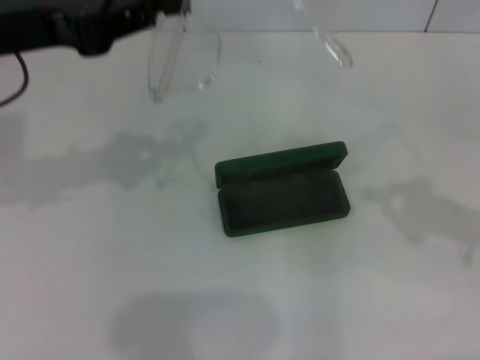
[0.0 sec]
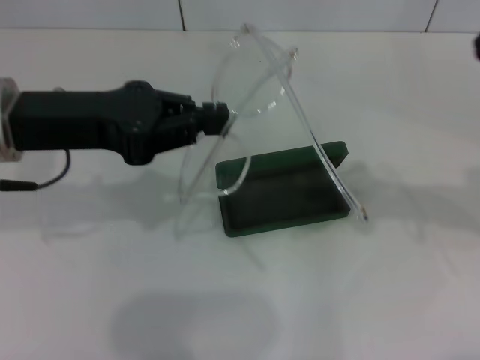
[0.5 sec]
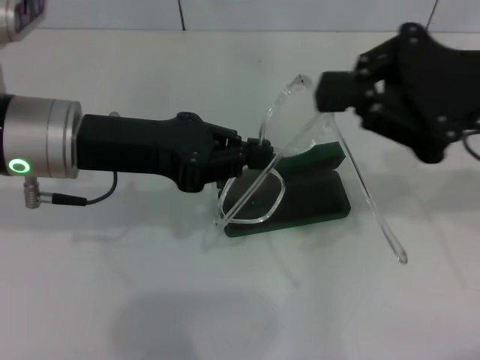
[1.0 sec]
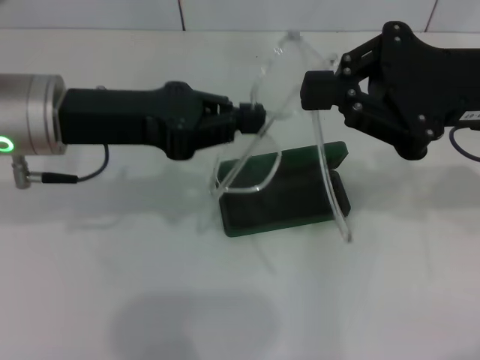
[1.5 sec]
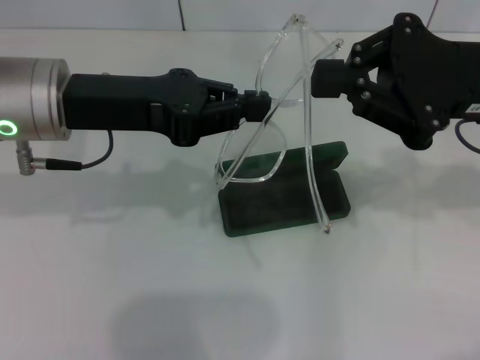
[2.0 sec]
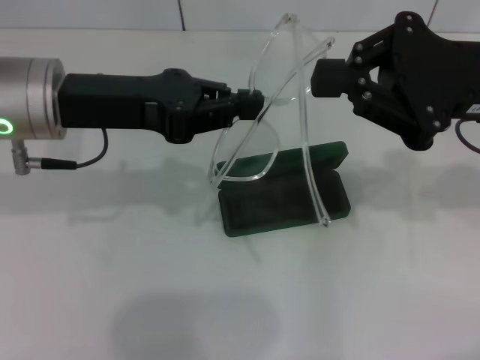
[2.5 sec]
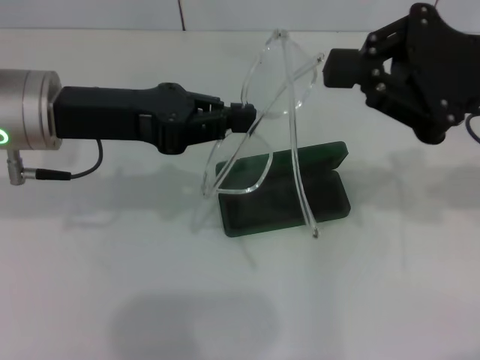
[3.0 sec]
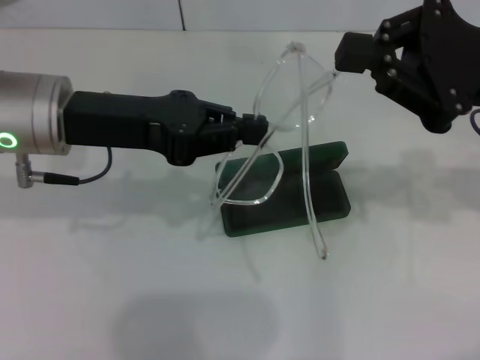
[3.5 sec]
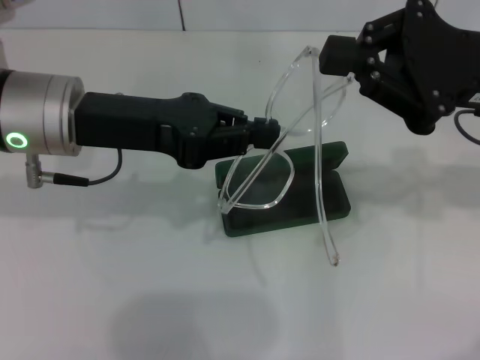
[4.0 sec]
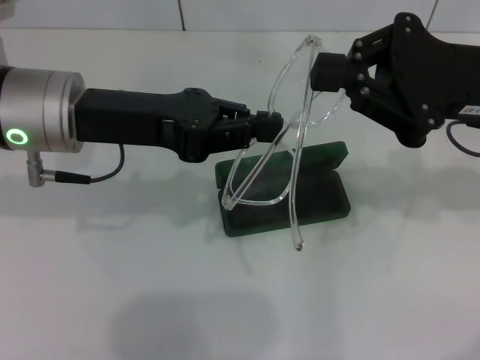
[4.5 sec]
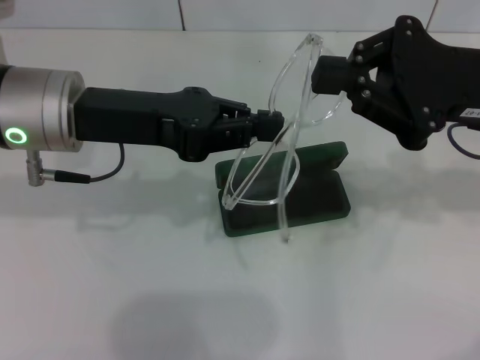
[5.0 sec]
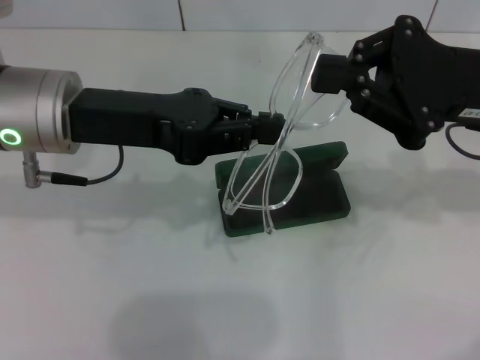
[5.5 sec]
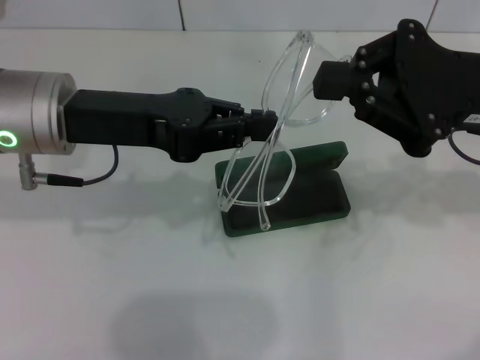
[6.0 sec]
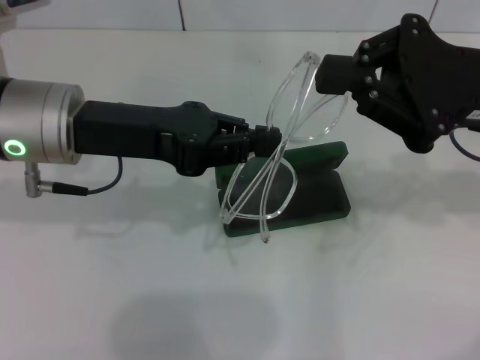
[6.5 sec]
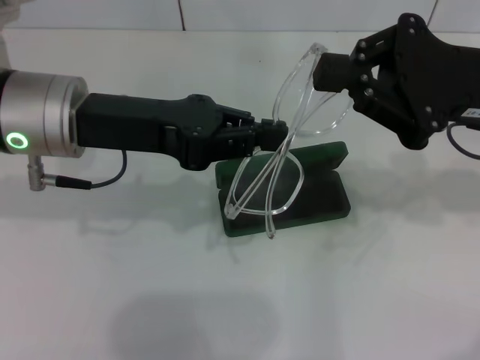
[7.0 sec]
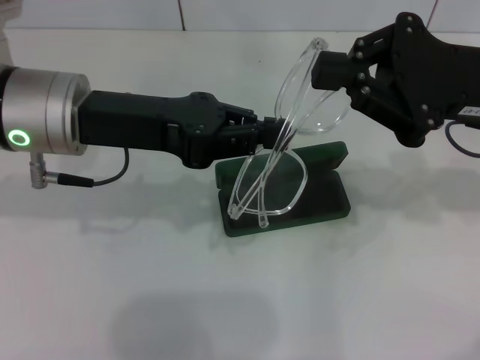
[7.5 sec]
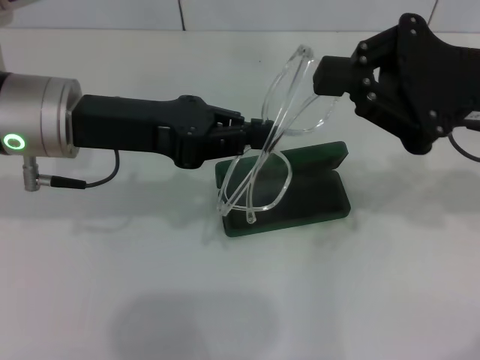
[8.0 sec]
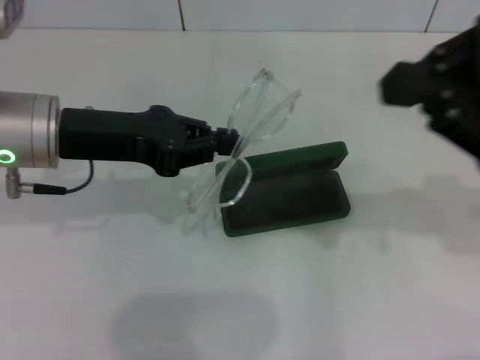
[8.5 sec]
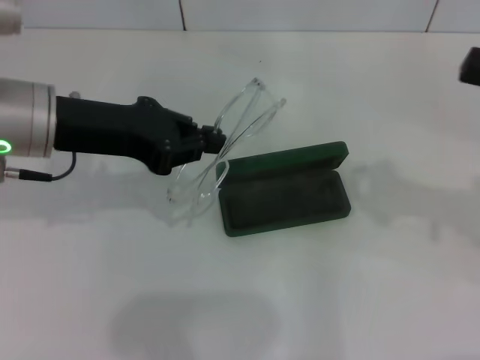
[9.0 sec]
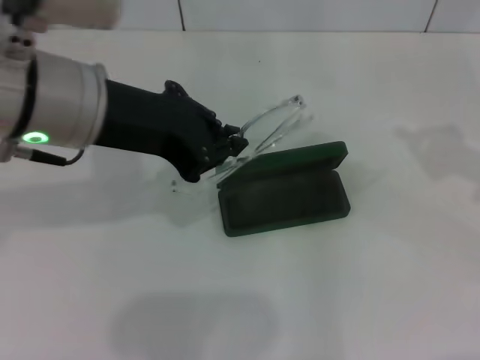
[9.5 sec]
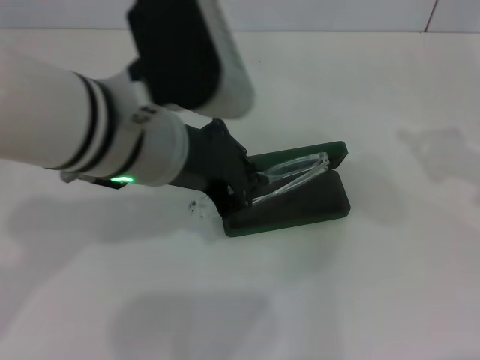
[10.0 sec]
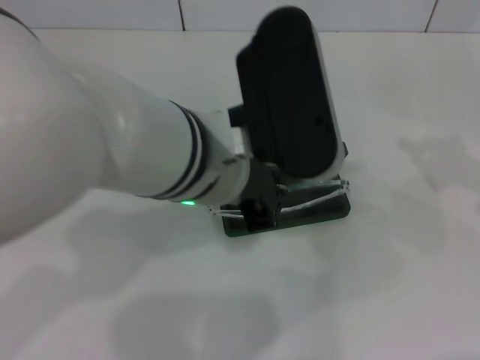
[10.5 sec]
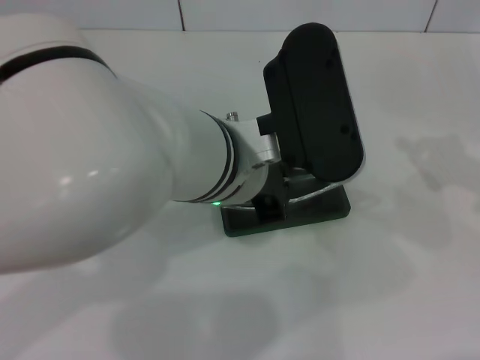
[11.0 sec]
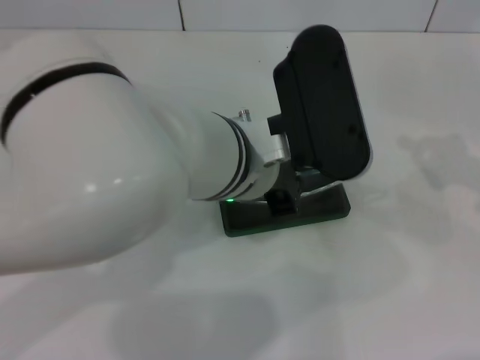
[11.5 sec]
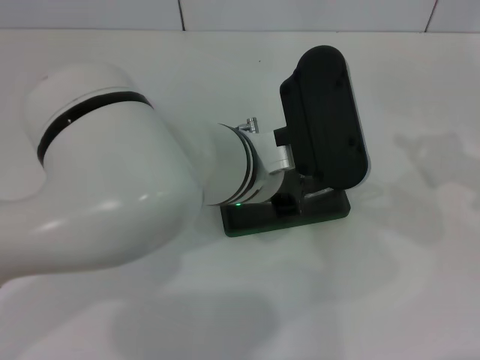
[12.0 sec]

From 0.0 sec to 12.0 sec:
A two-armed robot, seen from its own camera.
Step, from 0.0 sec to 7.5 sec: Lift the glasses with your left hand.
From 0.0 sec to 2.0 sec: The right gripper goes some 15 cm to the left and forward. The left gripper shifts some 5 cm to the right.
From 2.0 sec to 4.0 sec: The grippers stay close to where they were, moving slightly.
From 4.0 sec to 8.0 sec: The two grippers keep their place.
From 8.0 sec to 10.0 sec: The right gripper goes about 15 cm to the right; the left gripper moves to the right, about 10 cm.
From 10.0 sec to 12.0 sec: The left gripper shifts roughly 10 cm to the right and downward.

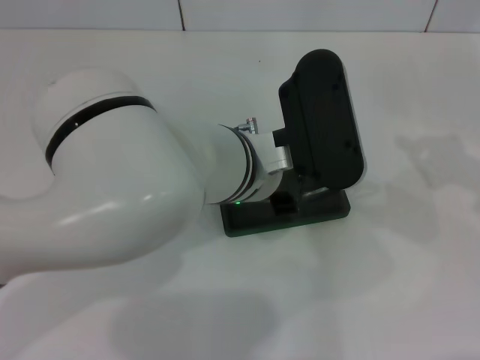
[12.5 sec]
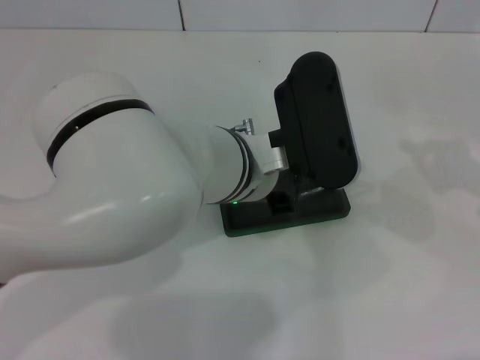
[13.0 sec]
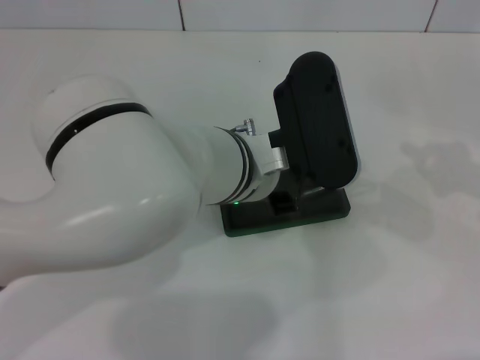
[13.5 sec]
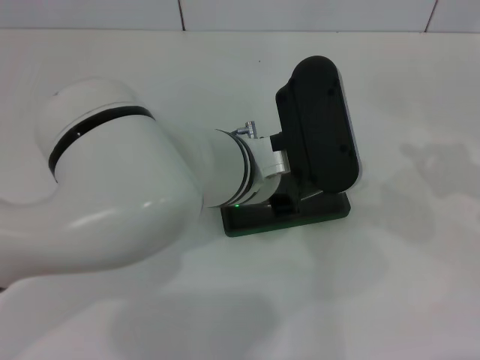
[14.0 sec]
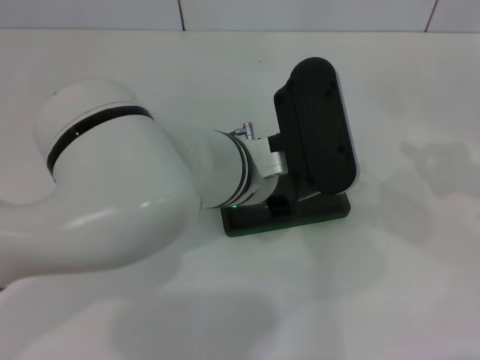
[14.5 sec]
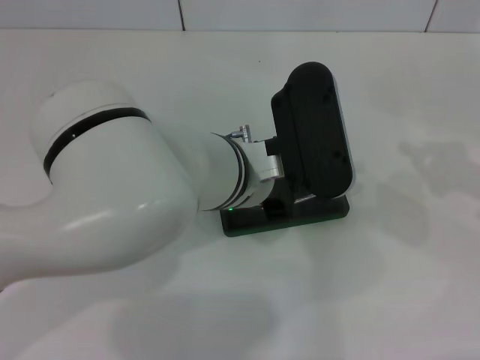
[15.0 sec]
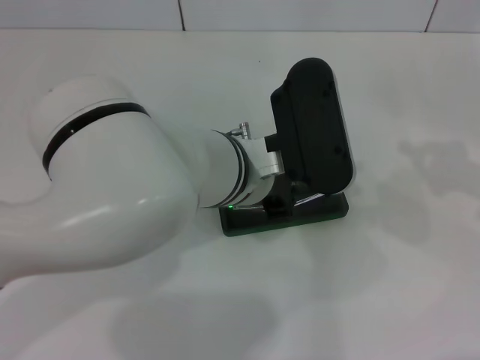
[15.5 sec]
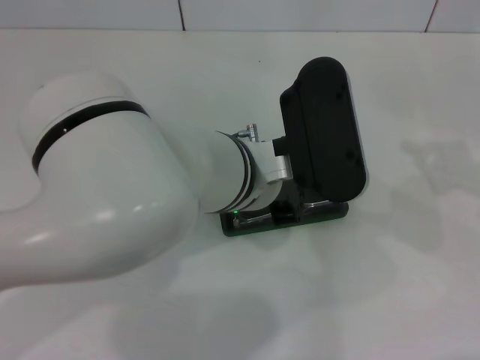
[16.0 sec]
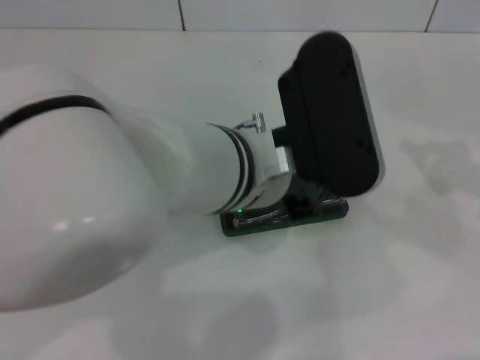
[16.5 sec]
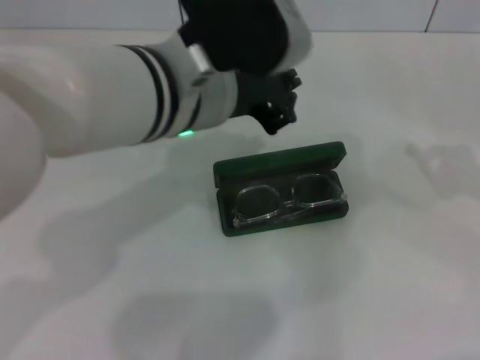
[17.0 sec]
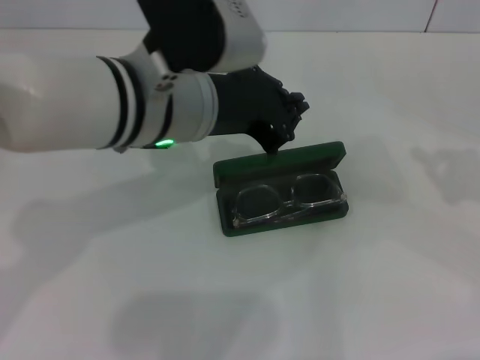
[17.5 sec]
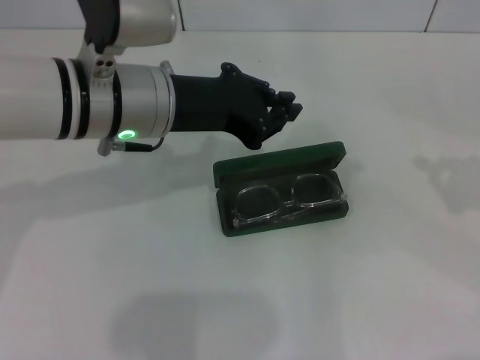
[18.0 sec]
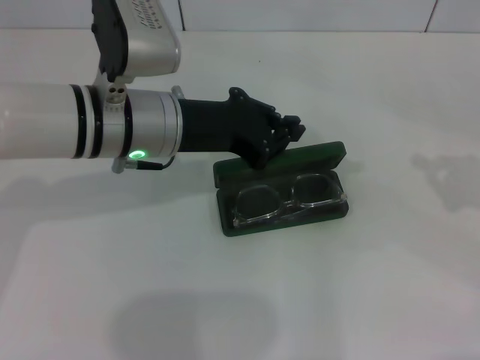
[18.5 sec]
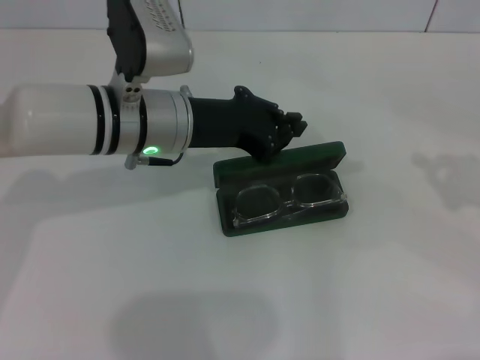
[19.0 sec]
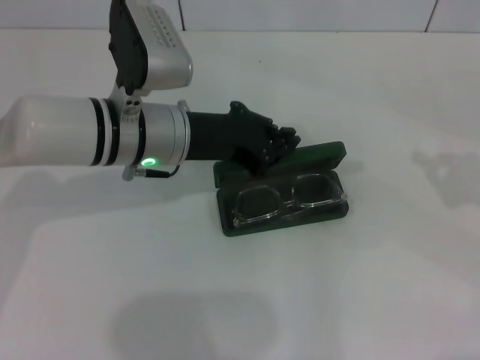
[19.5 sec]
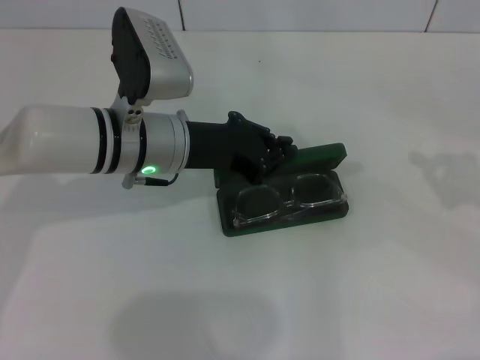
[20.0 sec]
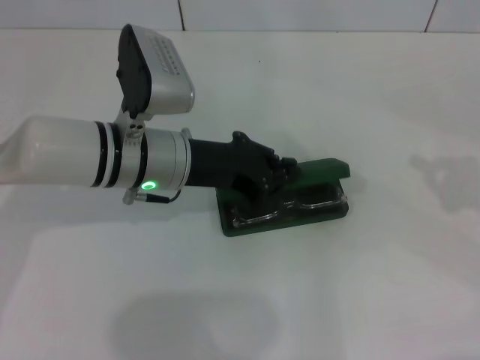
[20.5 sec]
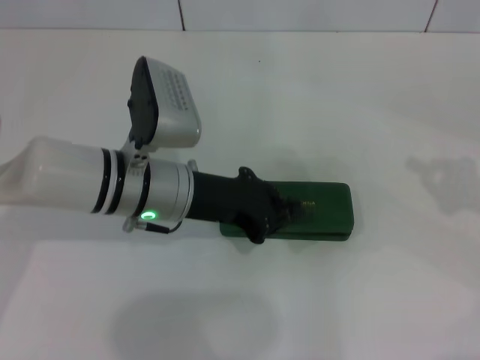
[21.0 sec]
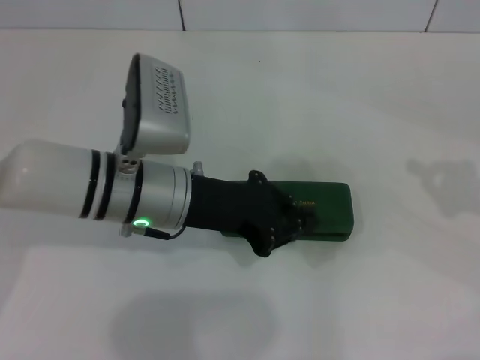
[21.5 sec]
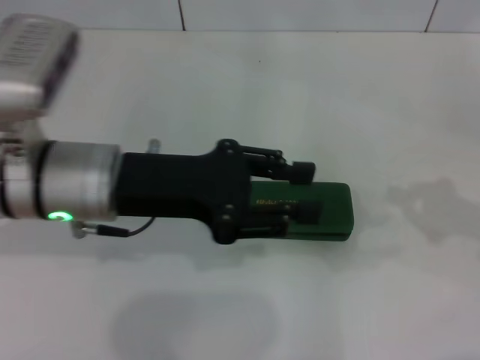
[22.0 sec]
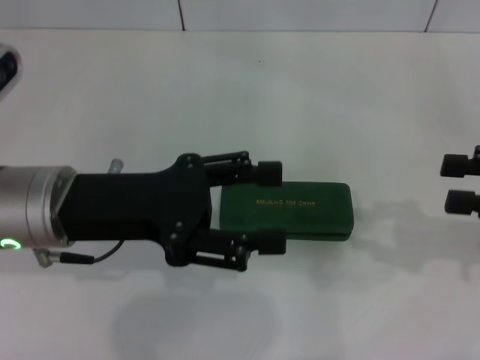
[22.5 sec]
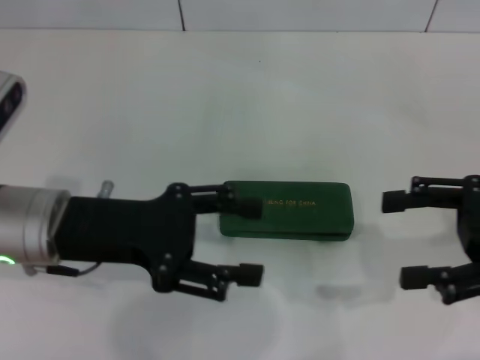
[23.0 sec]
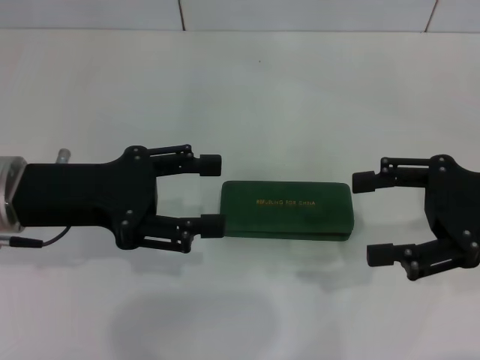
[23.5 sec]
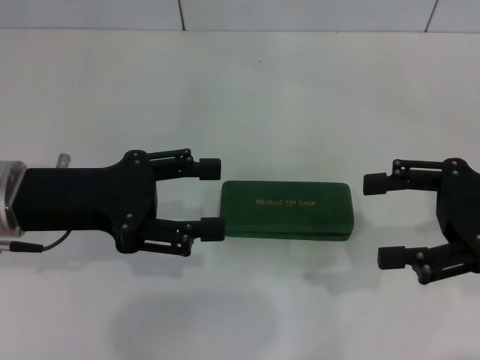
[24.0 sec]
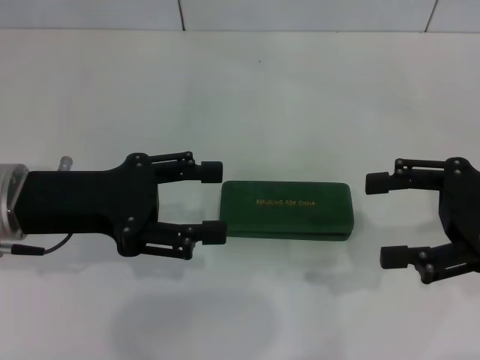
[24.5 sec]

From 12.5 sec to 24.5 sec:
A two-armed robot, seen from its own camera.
Step, from 12.5 sec to 15.5 sec: Put the glasses into the case with your left hand.
Step, from 16.0 sec to 21.0 sec: Close the glasses case with your left hand.
From 12.5 sec to 14.5 sec: The grippers move only a little.
From 14.5 sec to 16.5 sec: The left gripper moves some 5 cm.
From 16.5 sec to 18.5 sec: The left gripper travels to the left and forward by some 15 cm.
From 18.5 sec to 20.5 sec: There are only small adjustments of the grippers.
From 20.5 sec to 22.5 sec: The left gripper travels backward and to the left by roughly 10 cm, and opens.
From 22.5 sec to 24.5 sec: The right gripper shifts approximately 5 cm to the left, and opens.

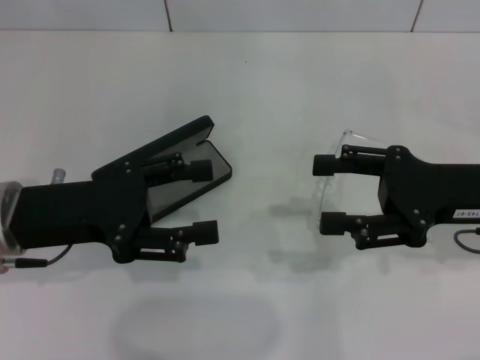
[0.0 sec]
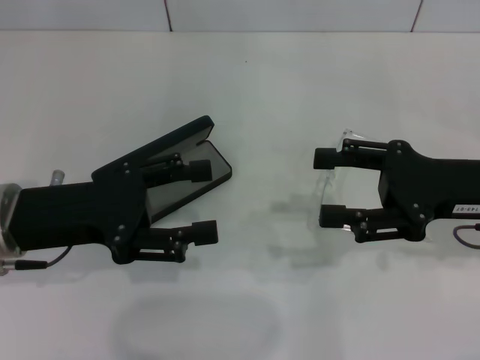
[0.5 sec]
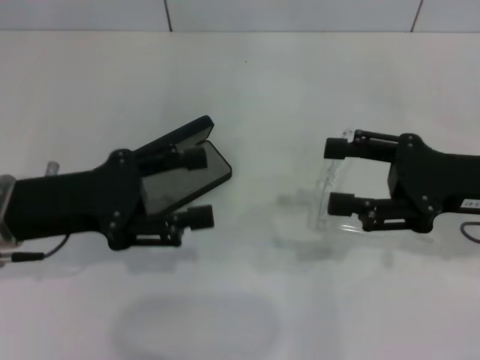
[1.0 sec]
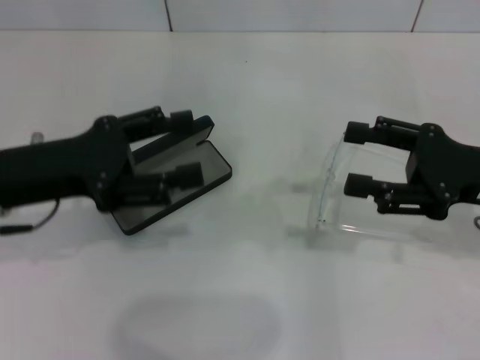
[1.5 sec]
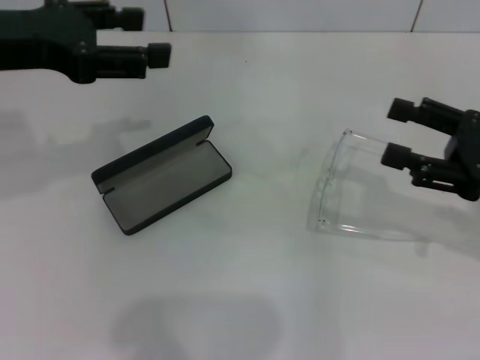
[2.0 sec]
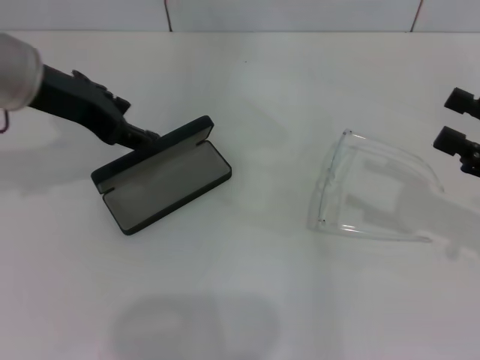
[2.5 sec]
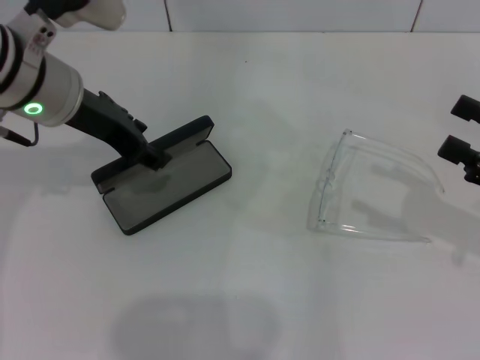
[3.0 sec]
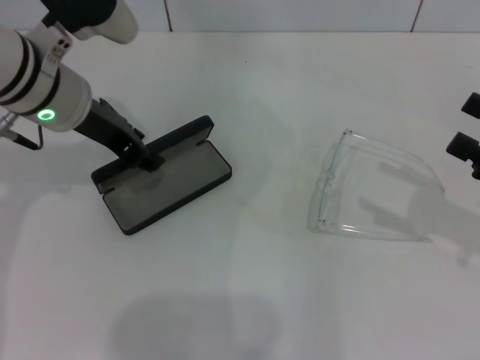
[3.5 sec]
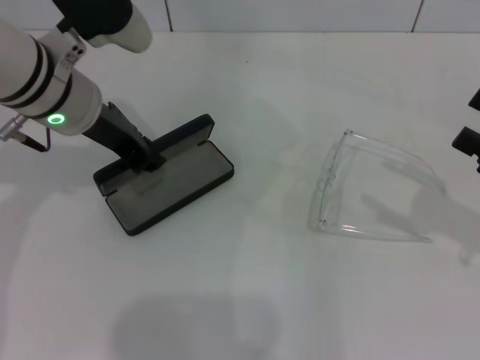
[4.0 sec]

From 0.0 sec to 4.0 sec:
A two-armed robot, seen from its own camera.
Step, from 0.0 sec to 3.5 sec: Grab the glasses case with your left hand.
From 0.0 sec to 2.0 sec: The right gripper is displaced to the right by some 5 cm. Meanwhile the left gripper moves upward and forward, about 15 cm.
From 2.0 sec to 4.0 sec: The left gripper is displaced to the right and downward by roughly 10 cm, and closes; the right gripper shifts by approximately 5 cm.
